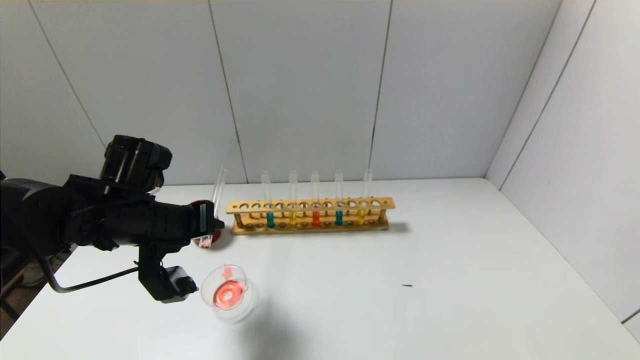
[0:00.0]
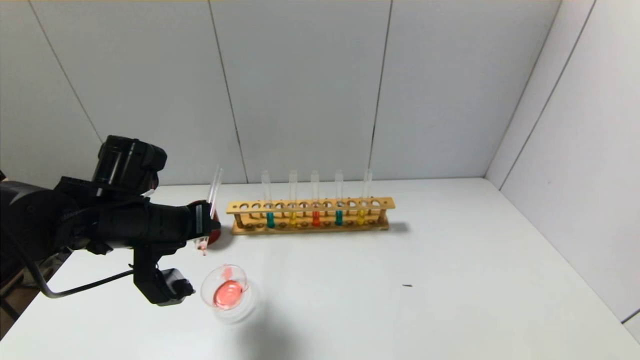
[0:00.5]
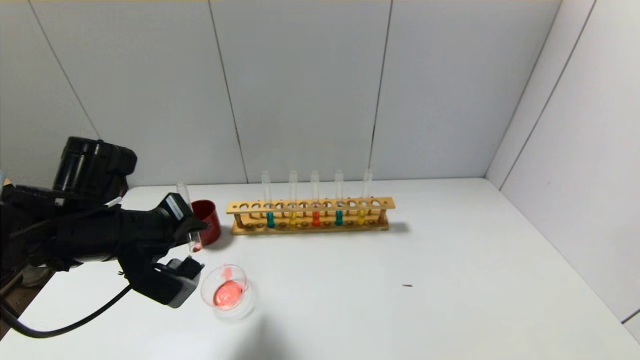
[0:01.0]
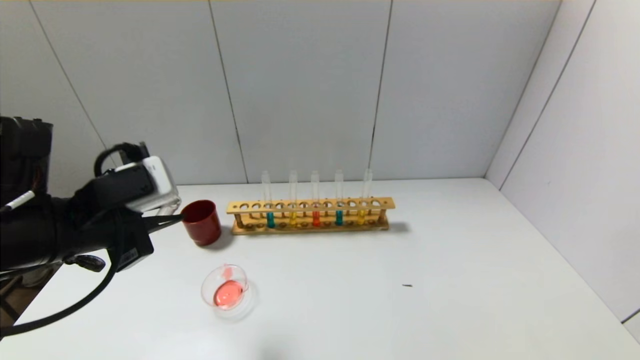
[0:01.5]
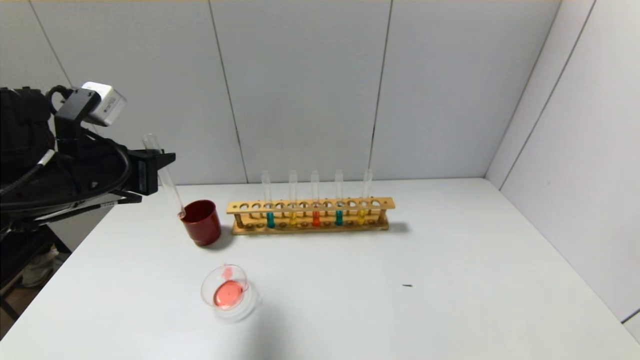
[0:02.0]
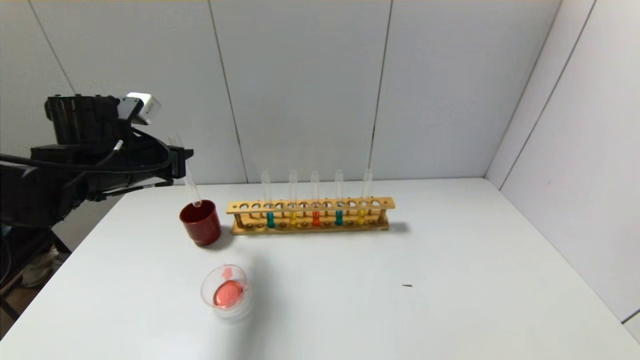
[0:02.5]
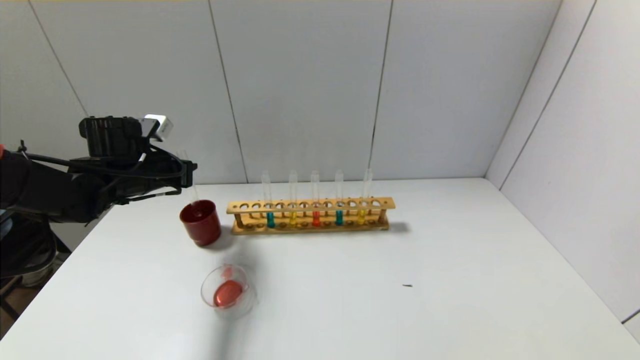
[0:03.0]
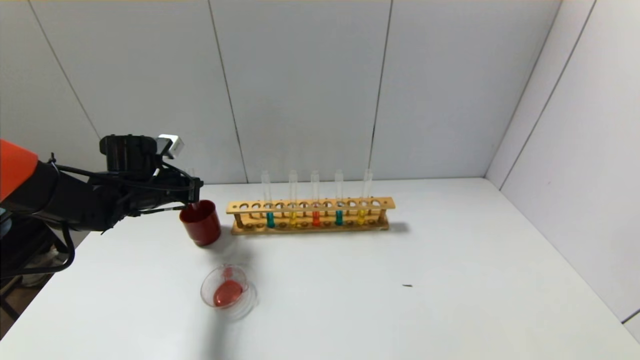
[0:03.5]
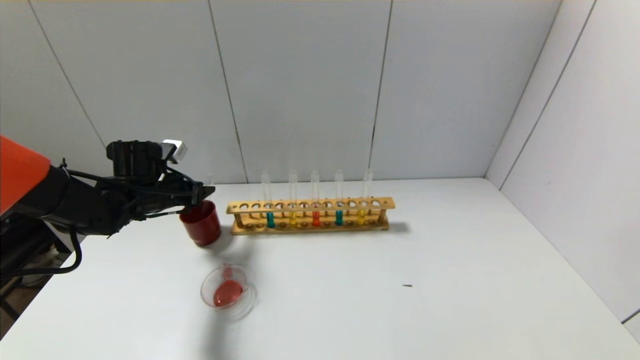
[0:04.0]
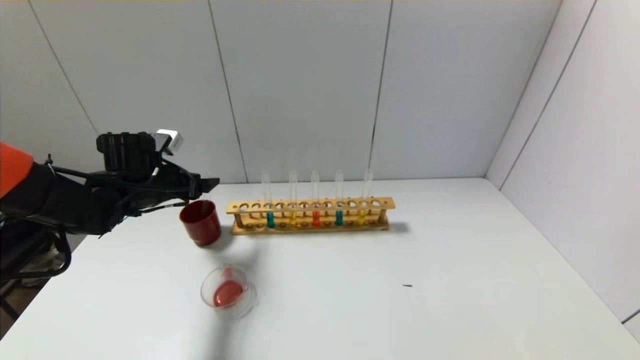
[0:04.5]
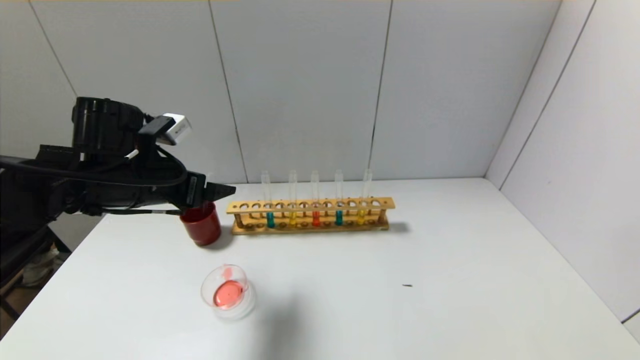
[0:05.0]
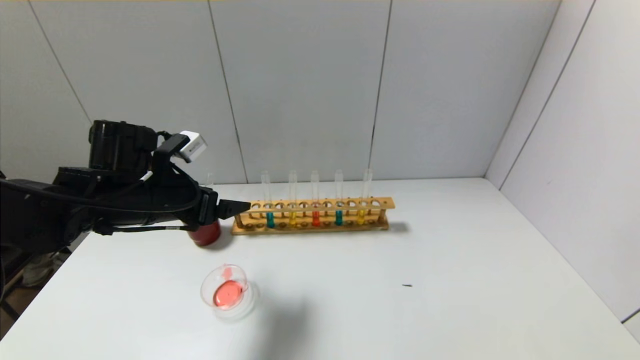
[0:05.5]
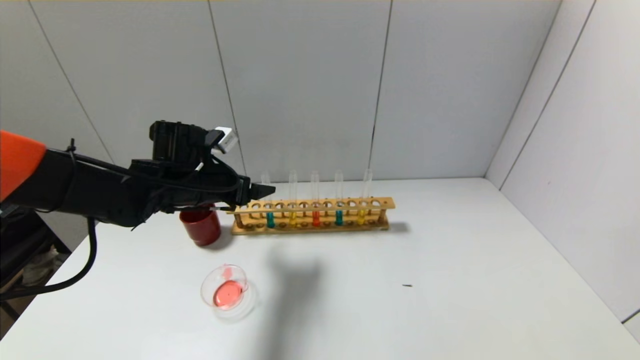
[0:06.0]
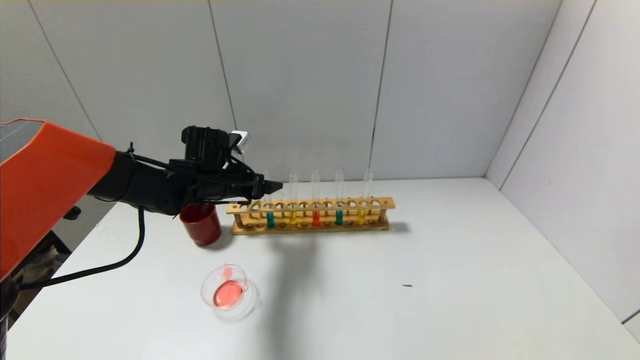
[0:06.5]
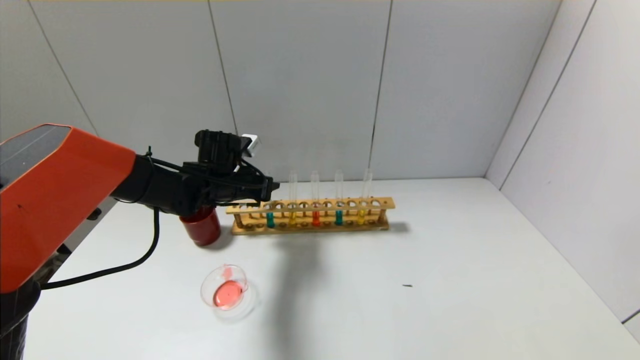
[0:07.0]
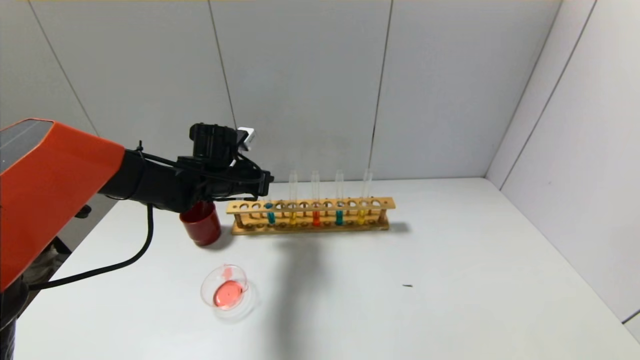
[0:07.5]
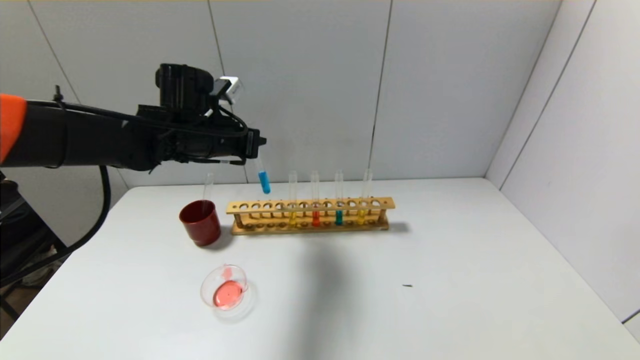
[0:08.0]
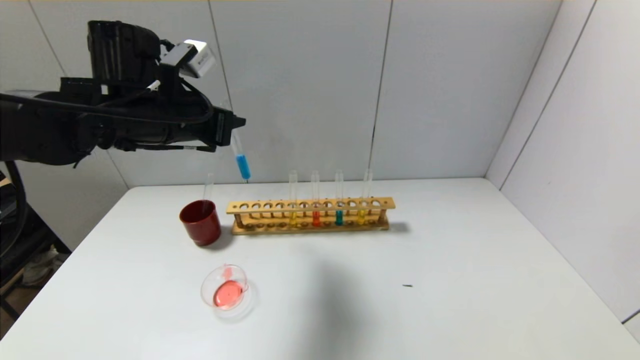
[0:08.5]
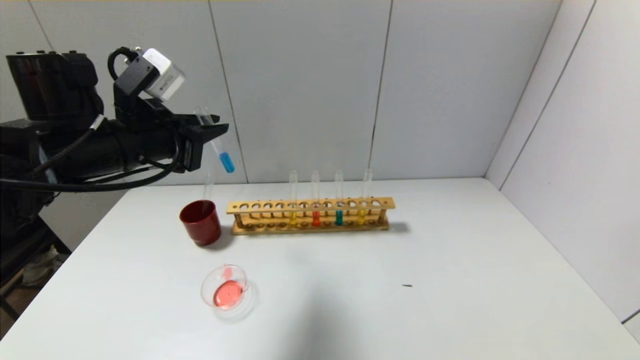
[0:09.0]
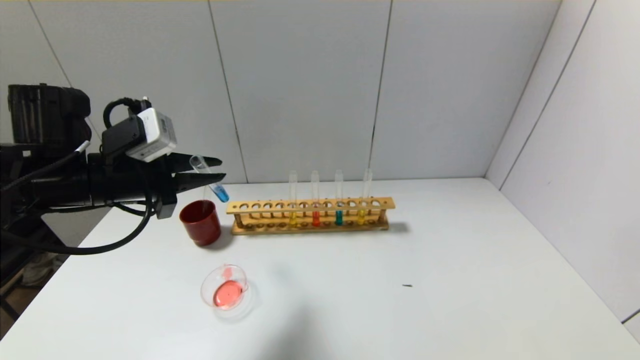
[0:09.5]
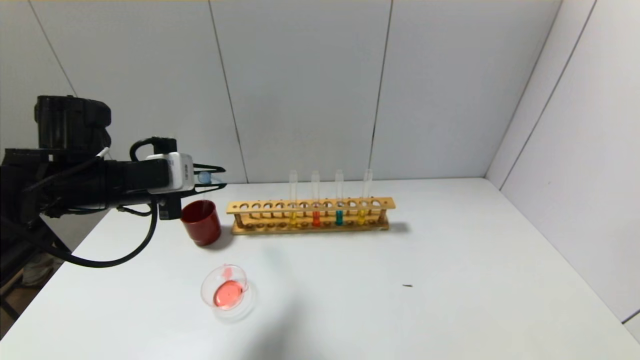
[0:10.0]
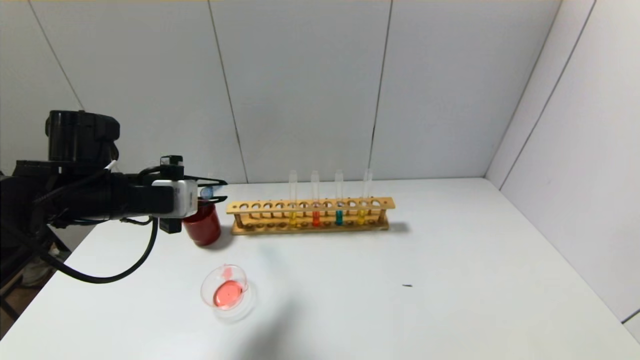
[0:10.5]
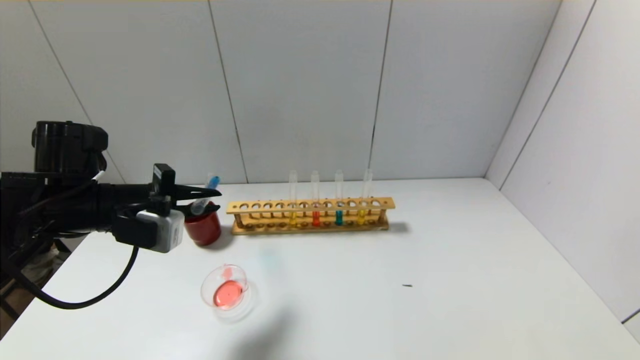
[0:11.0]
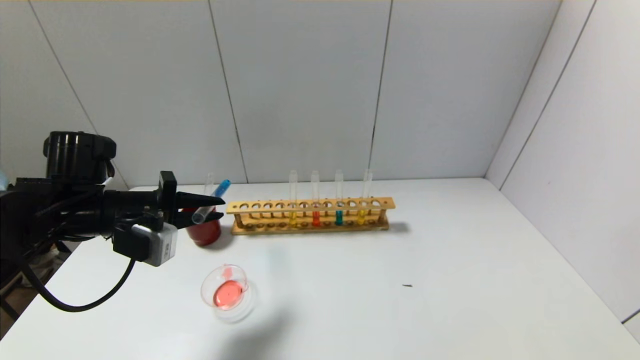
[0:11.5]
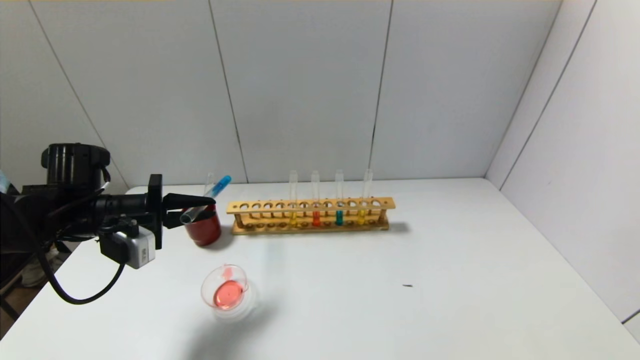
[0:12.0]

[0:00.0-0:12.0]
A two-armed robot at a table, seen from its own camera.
Step, 0:01.5 to 0:03.5: Place the test tube into the brown cup with the left gripper.
Step, 0:04.0 to 0:07.0: Grasp the blue reagent with the left gripper.
0:00.0 to 0:02.0: The left gripper moves upward, roughly 5 cm, and reaches some 10 cm backward, then returns.
0:02.0 to 0:04.0: The left gripper moves forward and downward, approximately 15 cm, and opens.
0:04.0 to 0:06.0: The left gripper heads to the right, covering roughly 10 cm.
0:06.0 to 0:08.0: The left gripper is displaced upward by roughly 10 cm, and closes its fingers.
0:08.0 to 0:10.0: The left gripper heads backward and to the left, covering roughly 10 cm.
0:10.0 to 0:12.0: The left gripper heads downward and to the left, covering about 10 cm.

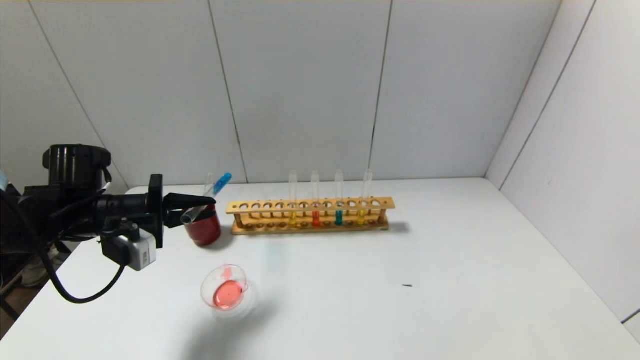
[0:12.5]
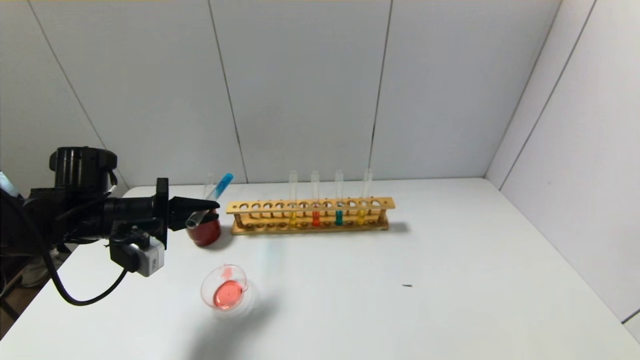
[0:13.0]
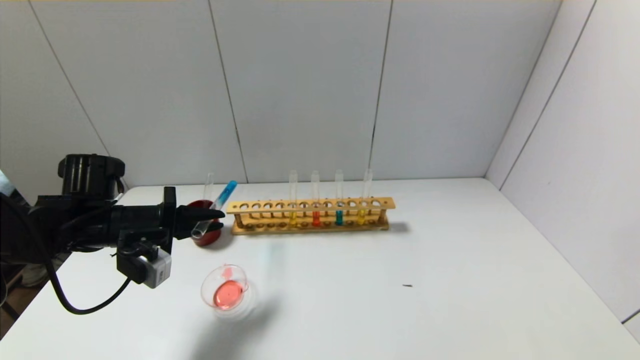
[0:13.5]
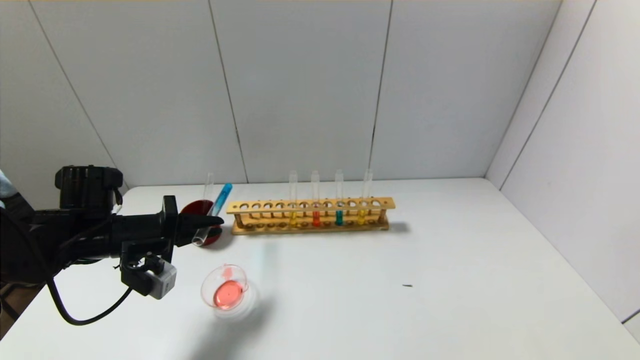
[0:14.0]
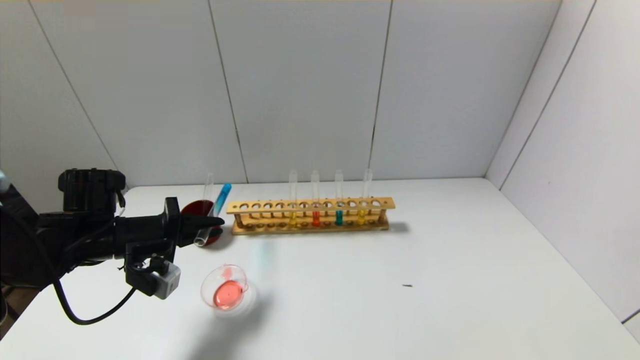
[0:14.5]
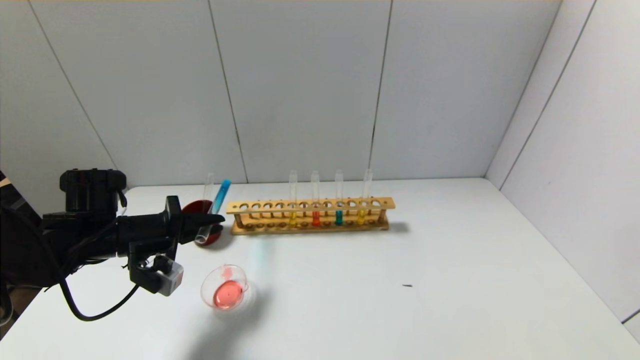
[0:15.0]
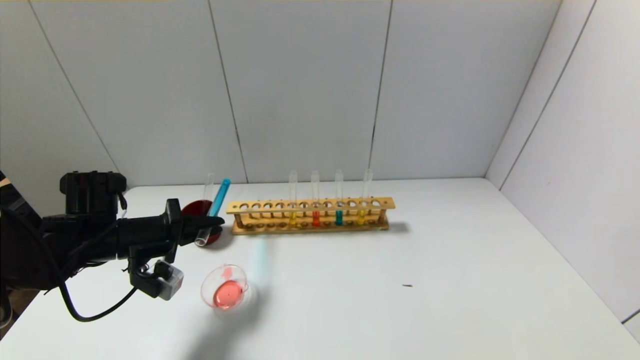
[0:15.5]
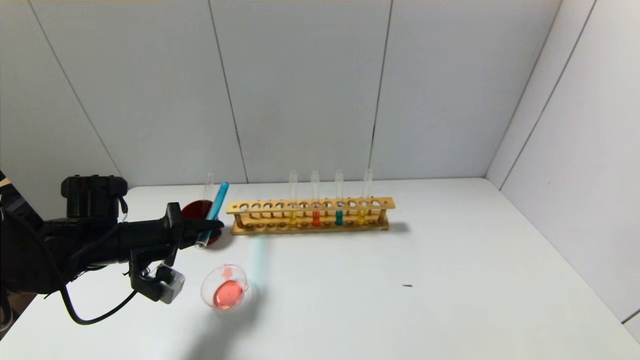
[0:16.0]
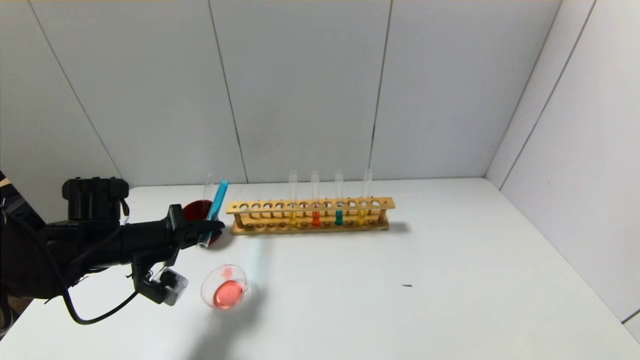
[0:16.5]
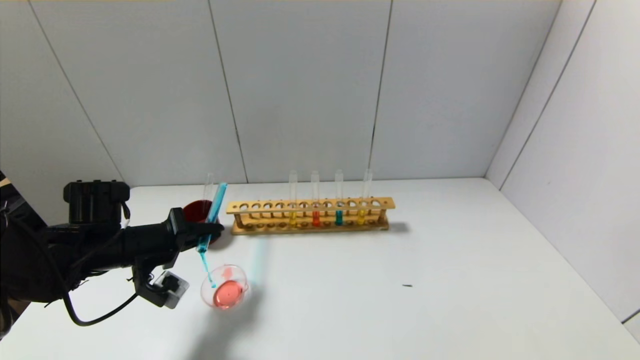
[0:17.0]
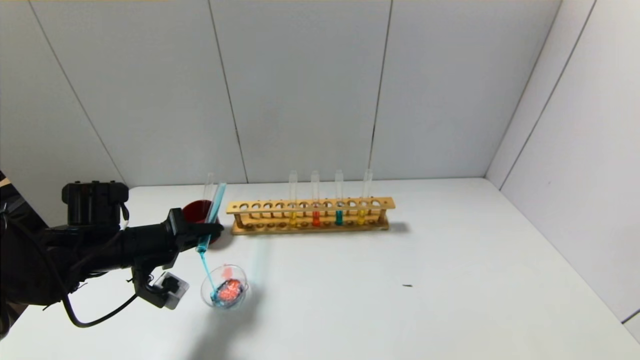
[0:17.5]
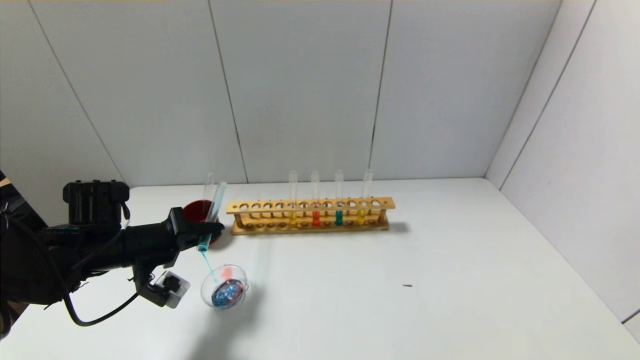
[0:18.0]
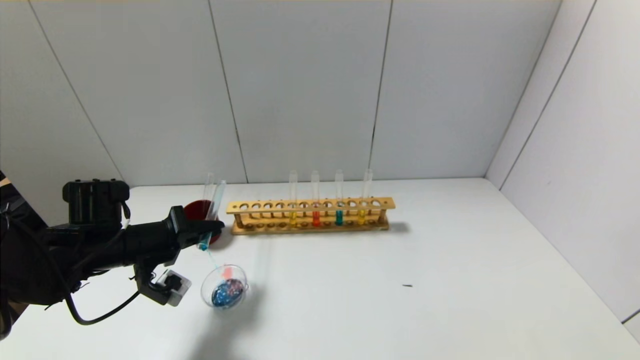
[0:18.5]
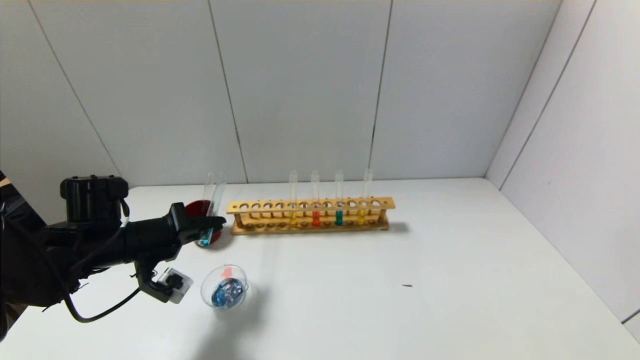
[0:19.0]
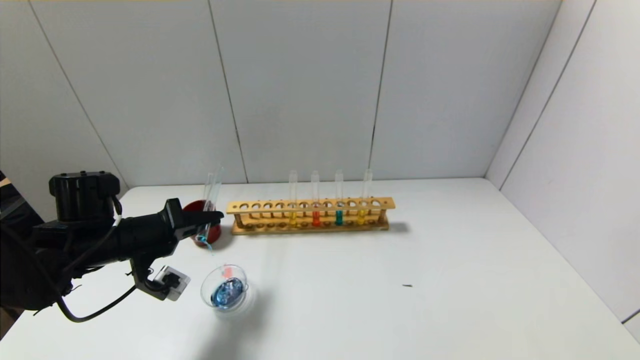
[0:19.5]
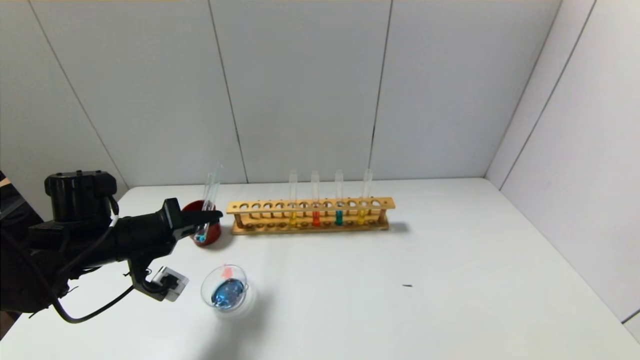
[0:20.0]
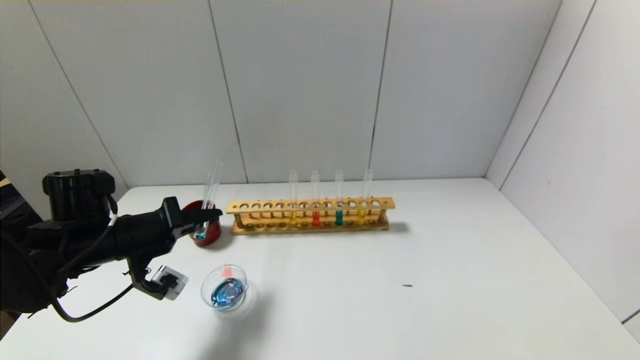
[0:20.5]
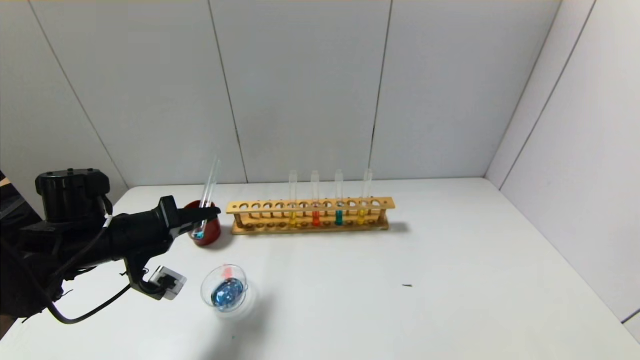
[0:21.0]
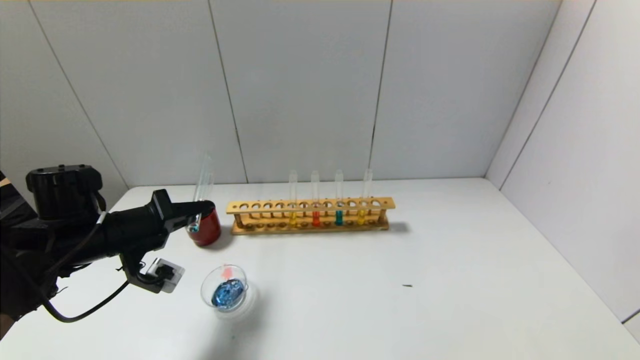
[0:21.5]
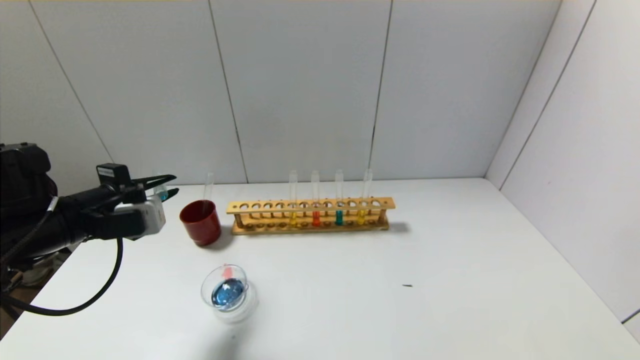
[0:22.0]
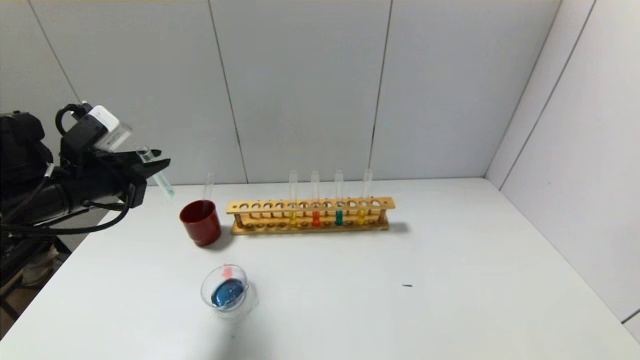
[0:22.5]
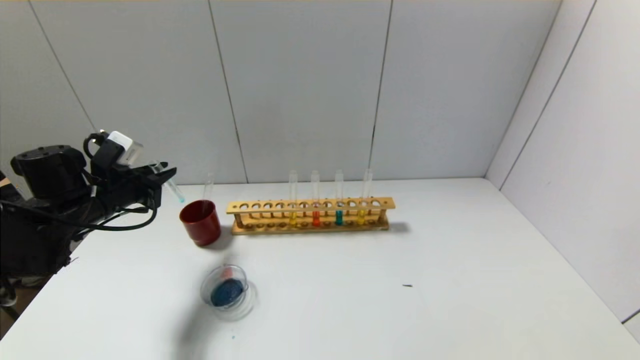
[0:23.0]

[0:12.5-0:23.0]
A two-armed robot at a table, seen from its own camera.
Step, 0:12.5 to 0:21.5: Pour the blue reagent into the graduated cylinder with the left gripper.
0:12.5 to 0:14.5: The grippers make only small movements.
0:14.5 to 0:19.0: There are only small adjustments of the grippers.
0:19.0 to 0:21.0: There are only small adjustments of the grippers.
0:21.0 to 0:23.0: The left gripper travels to the left and forward by some 10 cm.
